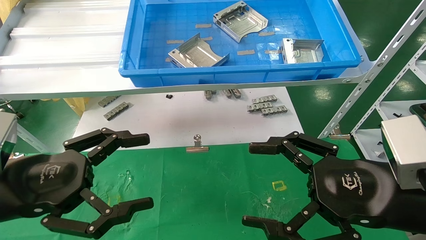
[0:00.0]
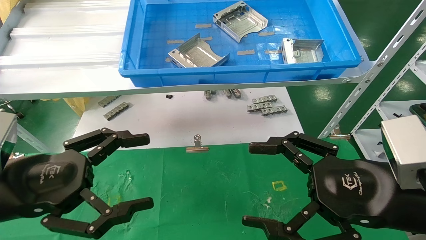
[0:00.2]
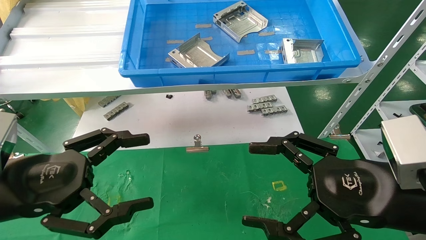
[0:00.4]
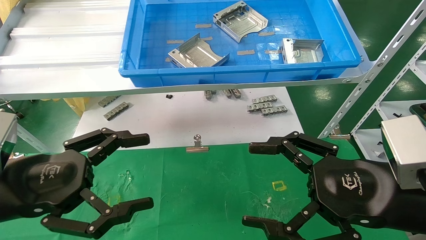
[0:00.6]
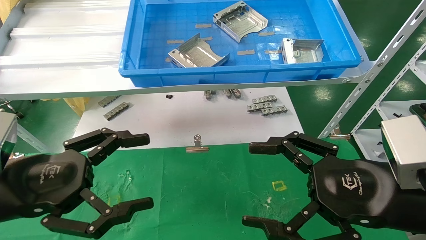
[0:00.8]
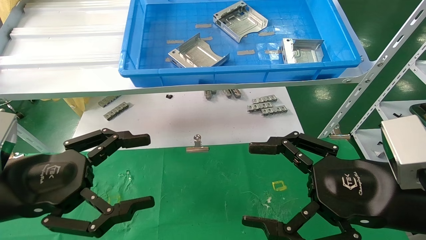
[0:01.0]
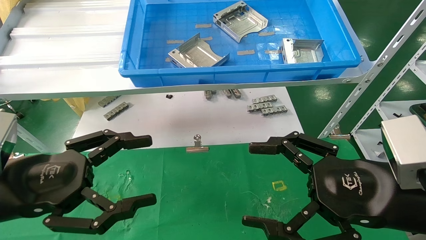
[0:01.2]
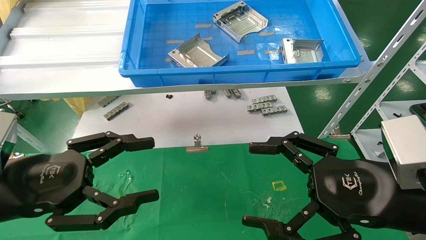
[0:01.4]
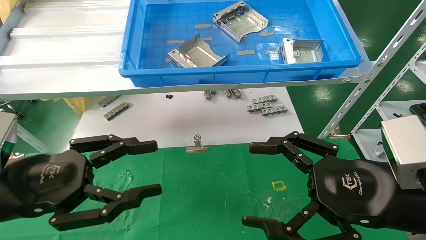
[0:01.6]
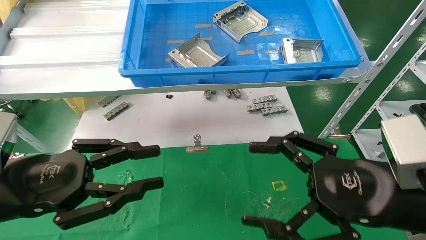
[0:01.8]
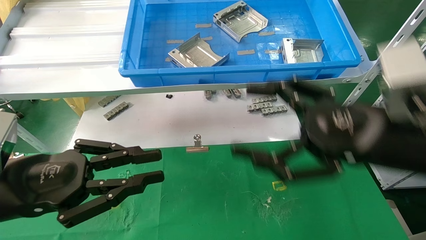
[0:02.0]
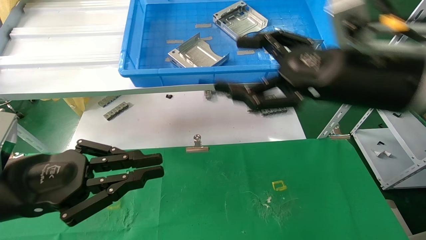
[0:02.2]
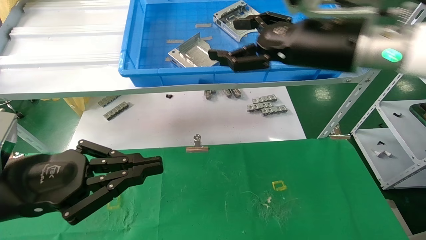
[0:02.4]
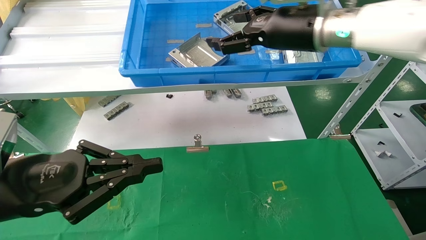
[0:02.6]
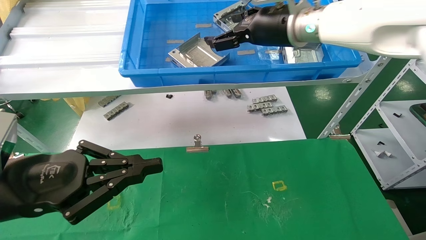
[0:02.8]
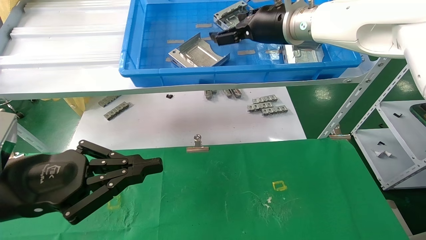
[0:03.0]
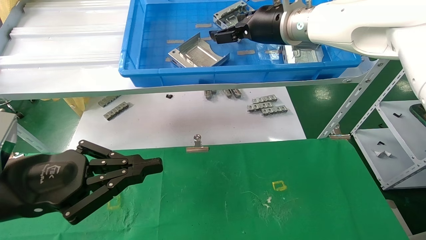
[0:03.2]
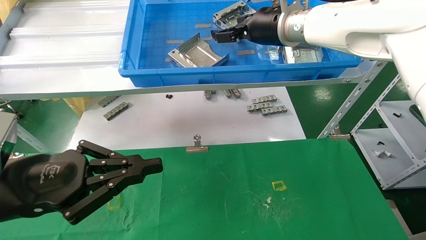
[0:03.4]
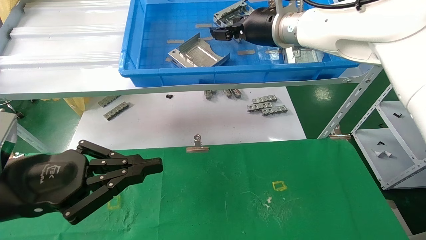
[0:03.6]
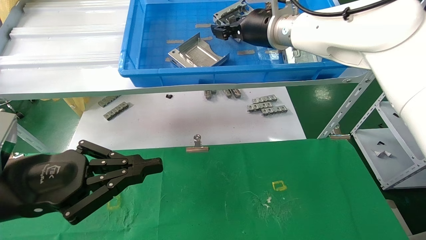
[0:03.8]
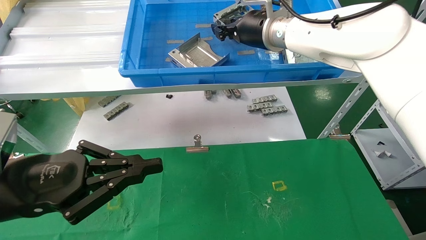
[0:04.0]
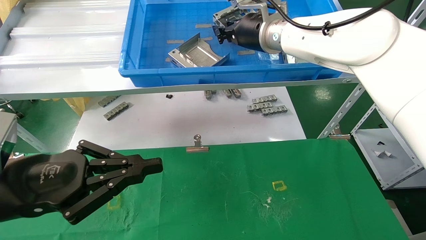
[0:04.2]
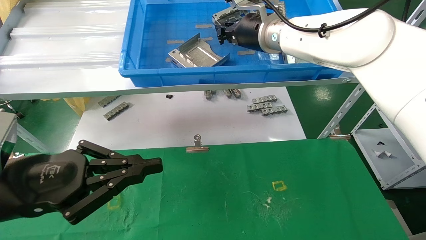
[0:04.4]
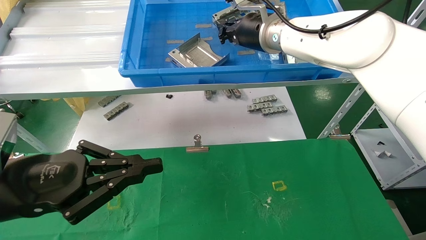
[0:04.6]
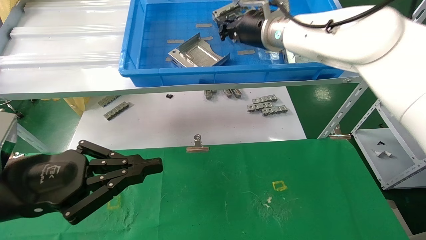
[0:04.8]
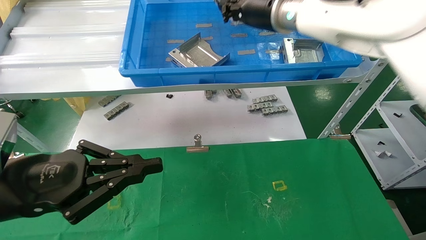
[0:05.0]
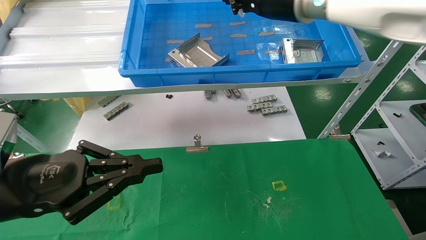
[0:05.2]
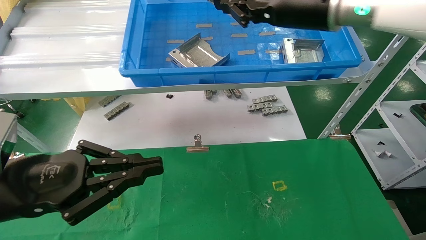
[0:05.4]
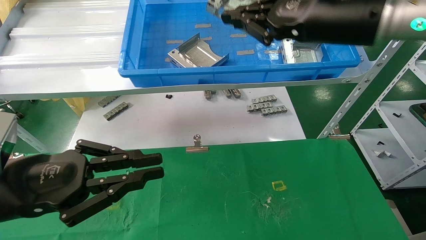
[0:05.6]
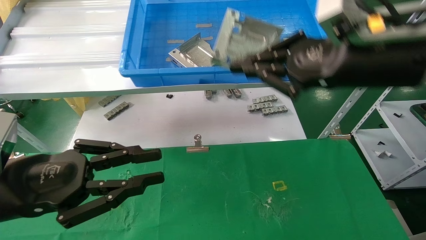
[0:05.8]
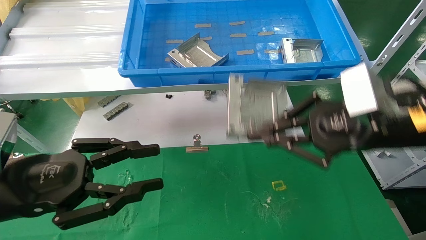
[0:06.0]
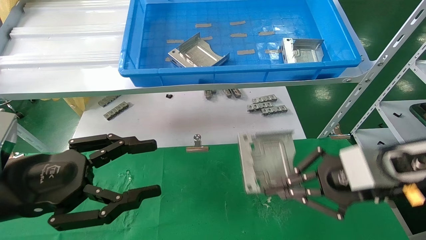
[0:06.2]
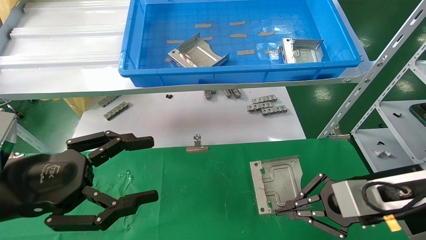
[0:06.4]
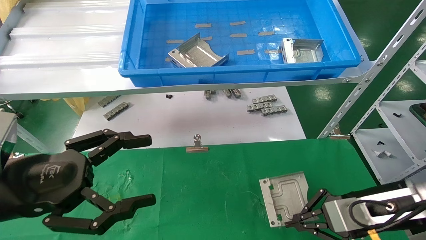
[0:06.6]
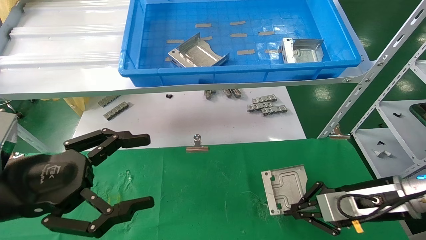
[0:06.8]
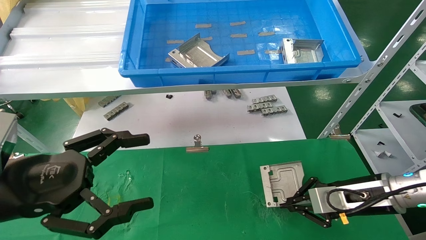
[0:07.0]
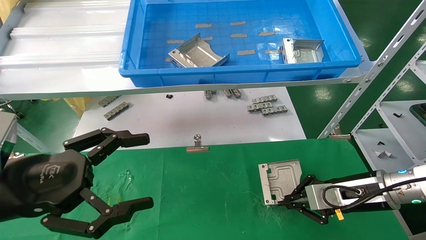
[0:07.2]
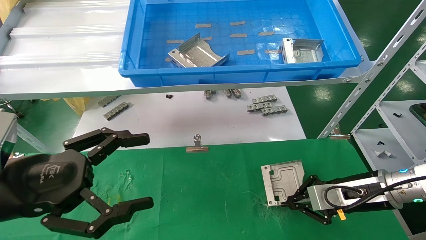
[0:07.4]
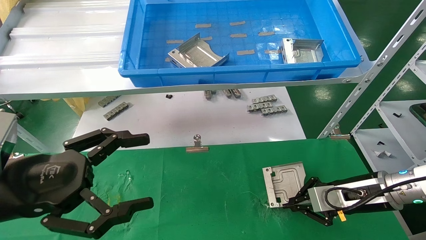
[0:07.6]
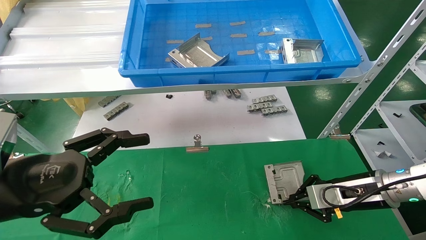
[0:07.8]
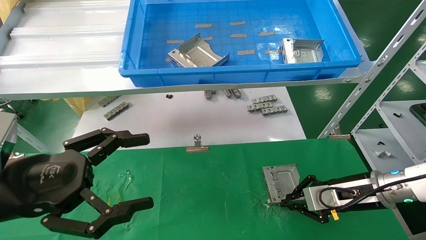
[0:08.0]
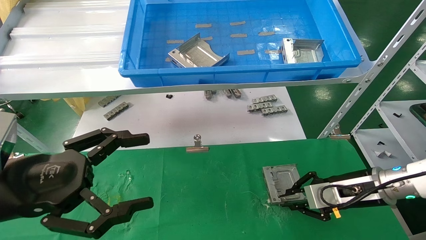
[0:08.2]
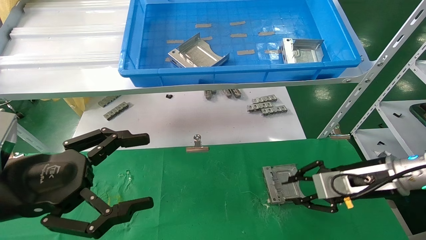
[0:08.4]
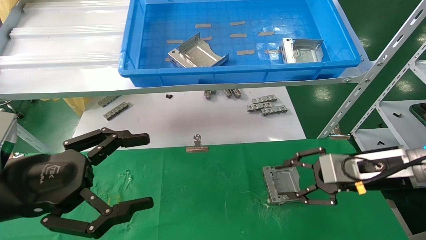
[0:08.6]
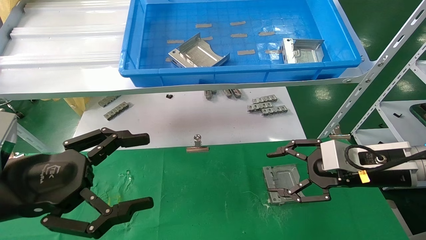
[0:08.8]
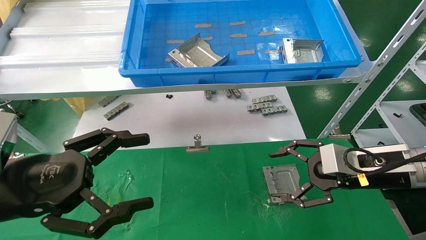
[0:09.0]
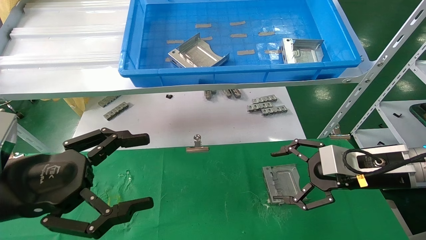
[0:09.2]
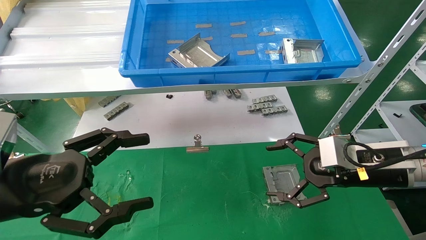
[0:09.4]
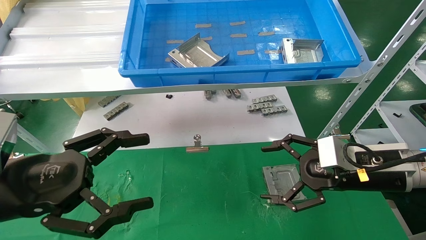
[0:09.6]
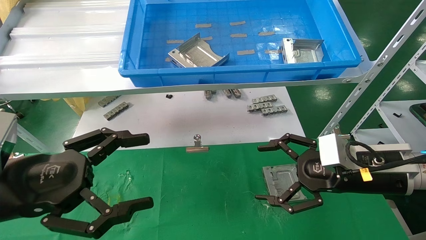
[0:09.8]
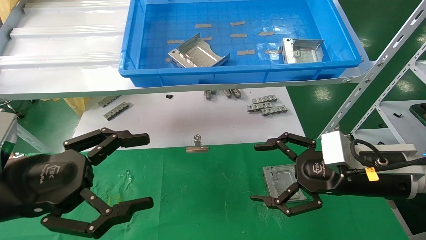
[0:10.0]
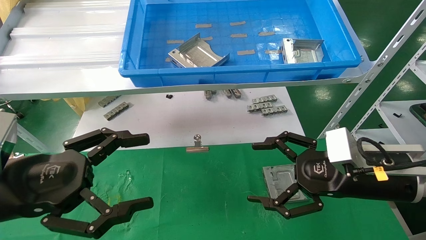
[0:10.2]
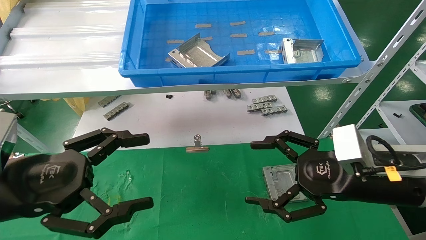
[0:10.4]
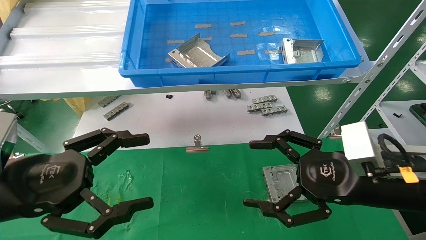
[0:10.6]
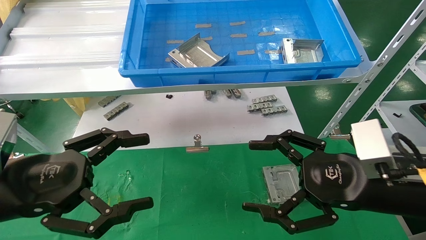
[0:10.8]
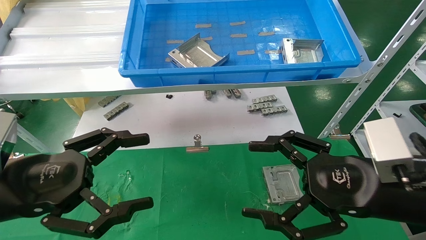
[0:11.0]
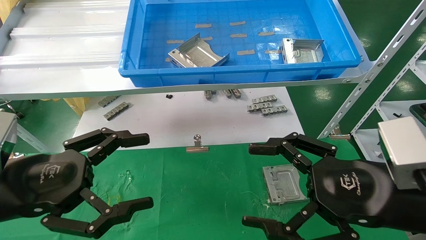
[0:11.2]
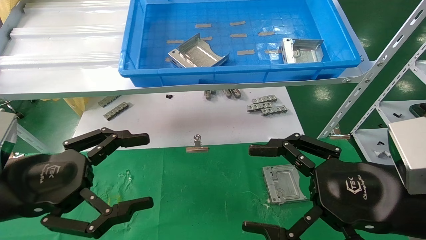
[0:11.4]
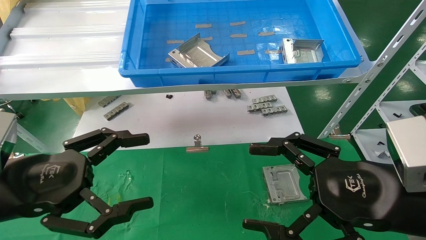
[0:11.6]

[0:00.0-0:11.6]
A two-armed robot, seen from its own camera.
Task of the whole recording: use the mechanical arm to pick up the parts and place them on the table.
Step, 0:02.0 to 0:05.0: Pick up the hard drive bracket from the feeding area.
Step, 0:05.2 to 0:08.2: Place the hard drive bracket into the box.
0:00.0 to 0:01.4: Both grippers stay about where they are.
0:01.4 to 0:02.8: The right gripper moves forward, upward and to the left, approximately 30 cm. Meanwhile the left gripper closes up.
0:02.8 to 0:04.4: The right gripper ends up roughly 5 cm from where it was, and closes.
0:04.4 to 0:05.8: The right gripper is displaced backward and to the right by approximately 20 cm.
0:05.8 to 0:07.2: The left gripper opens. Meanwhile the right gripper travels downward by approximately 25 cm.
0:07.2 to 0:08.8: The right gripper shifts roughly 5 cm upward, and opens.
0:08.8 to 0:10.2: The right gripper ends up approximately 5 cm from where it was, and opens its fingers.
0:10.2 to 0:11.6: The right gripper heads backward, covering roughly 10 cm.
